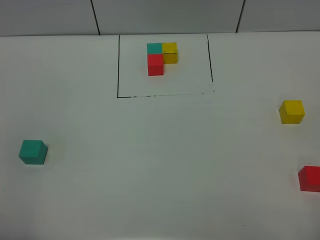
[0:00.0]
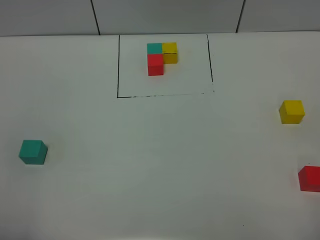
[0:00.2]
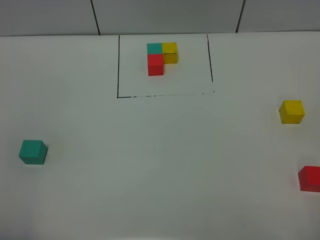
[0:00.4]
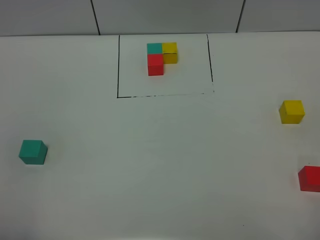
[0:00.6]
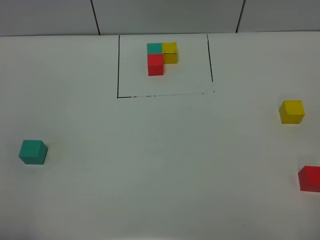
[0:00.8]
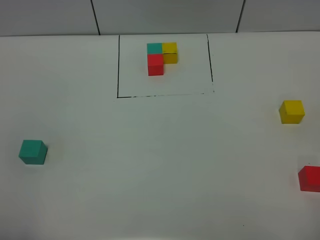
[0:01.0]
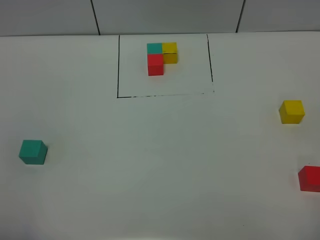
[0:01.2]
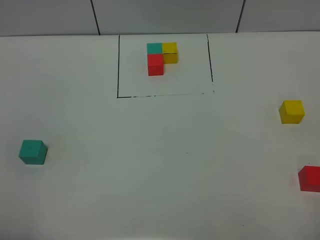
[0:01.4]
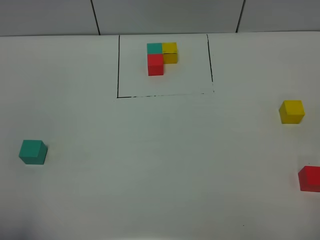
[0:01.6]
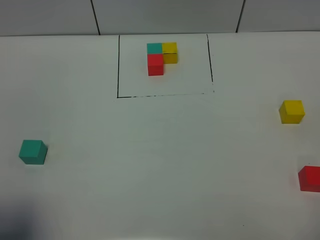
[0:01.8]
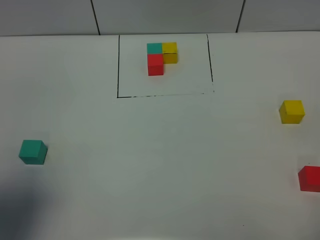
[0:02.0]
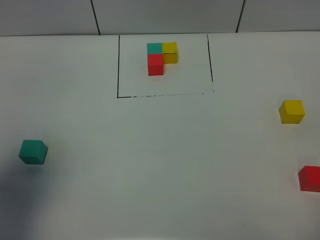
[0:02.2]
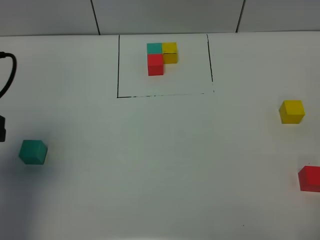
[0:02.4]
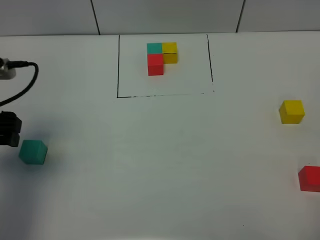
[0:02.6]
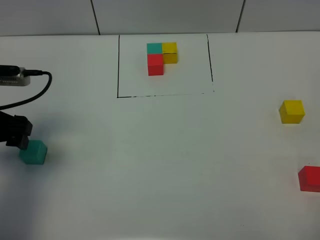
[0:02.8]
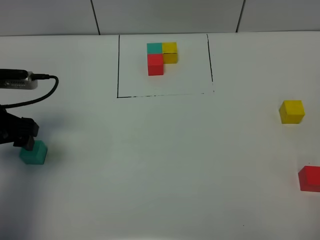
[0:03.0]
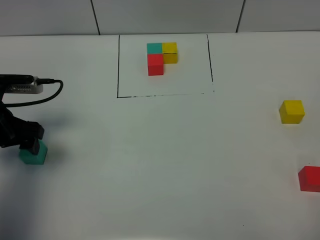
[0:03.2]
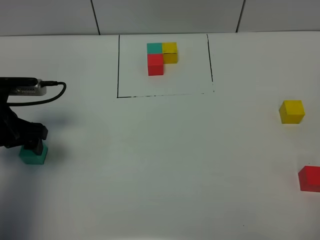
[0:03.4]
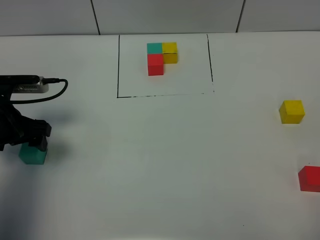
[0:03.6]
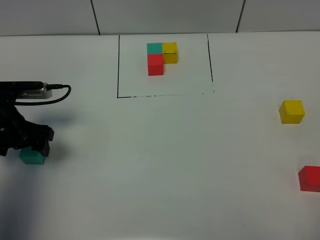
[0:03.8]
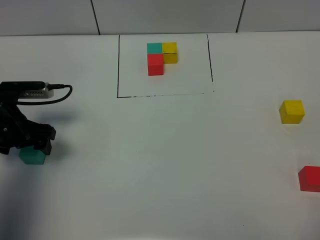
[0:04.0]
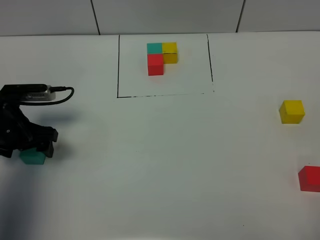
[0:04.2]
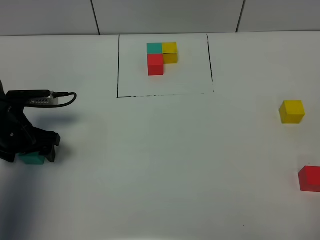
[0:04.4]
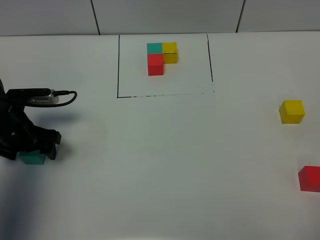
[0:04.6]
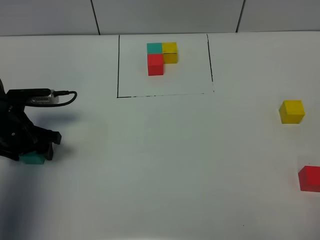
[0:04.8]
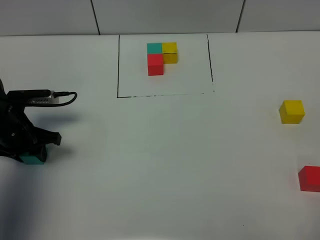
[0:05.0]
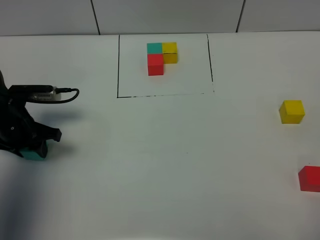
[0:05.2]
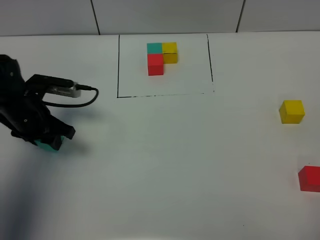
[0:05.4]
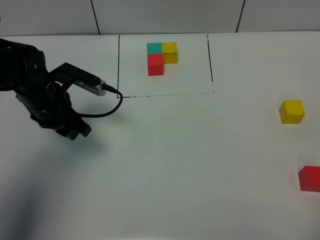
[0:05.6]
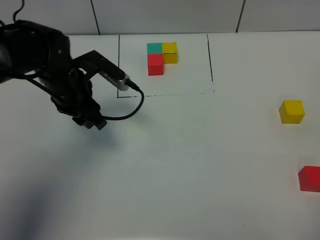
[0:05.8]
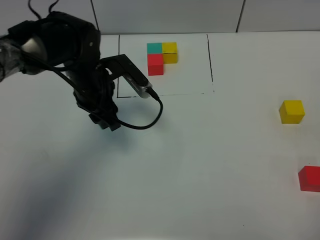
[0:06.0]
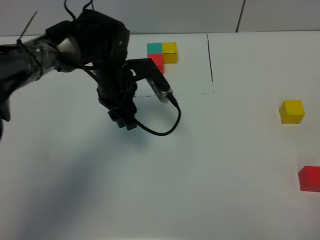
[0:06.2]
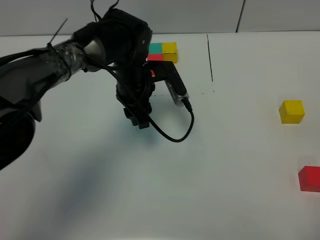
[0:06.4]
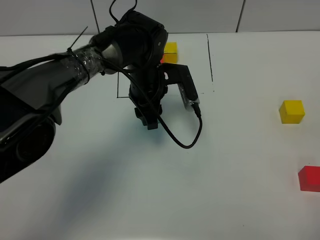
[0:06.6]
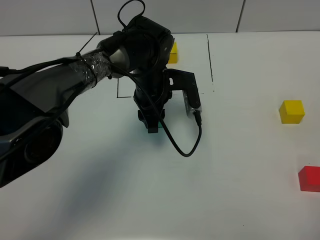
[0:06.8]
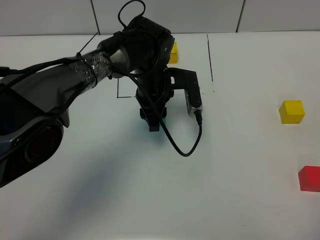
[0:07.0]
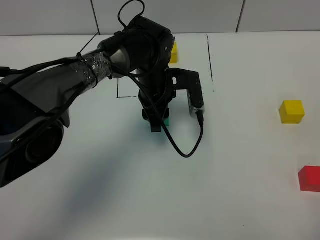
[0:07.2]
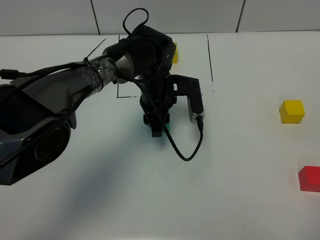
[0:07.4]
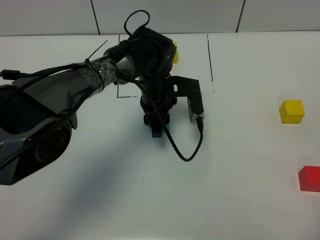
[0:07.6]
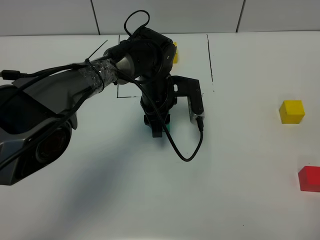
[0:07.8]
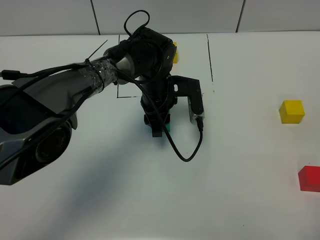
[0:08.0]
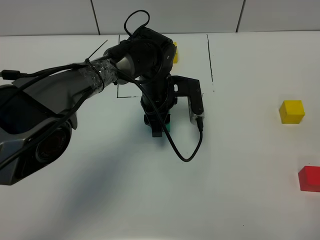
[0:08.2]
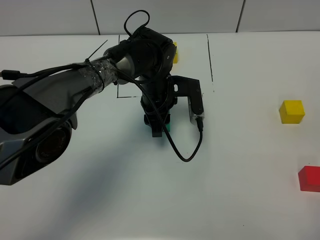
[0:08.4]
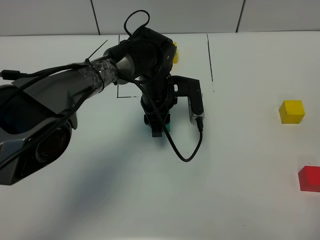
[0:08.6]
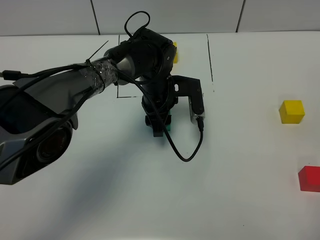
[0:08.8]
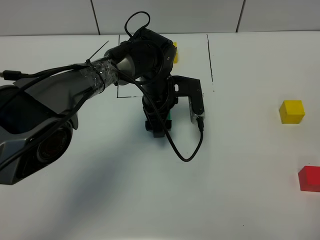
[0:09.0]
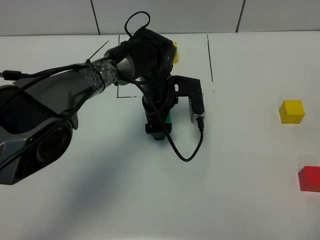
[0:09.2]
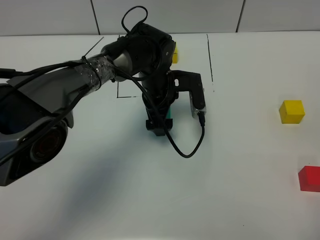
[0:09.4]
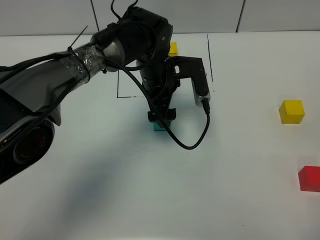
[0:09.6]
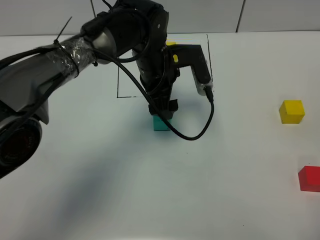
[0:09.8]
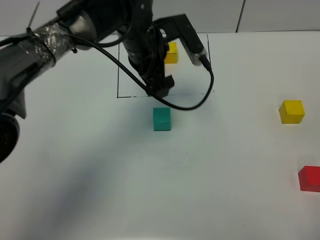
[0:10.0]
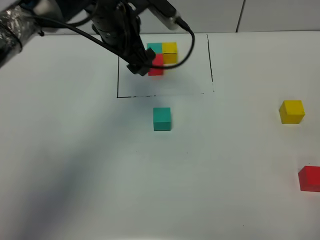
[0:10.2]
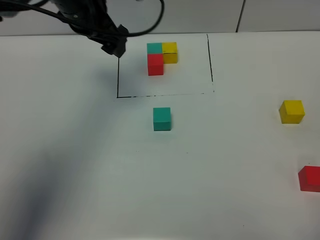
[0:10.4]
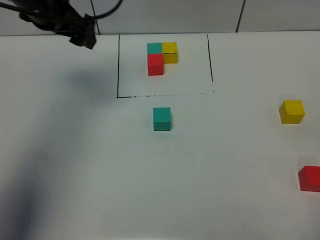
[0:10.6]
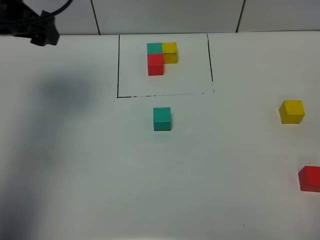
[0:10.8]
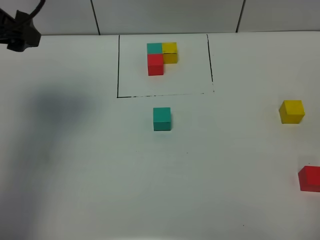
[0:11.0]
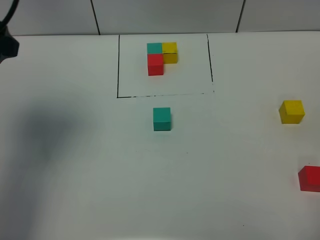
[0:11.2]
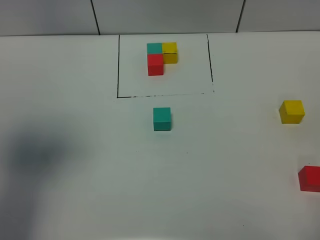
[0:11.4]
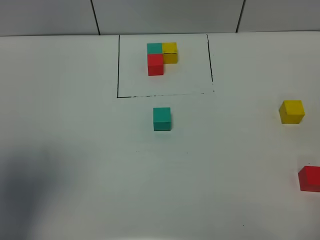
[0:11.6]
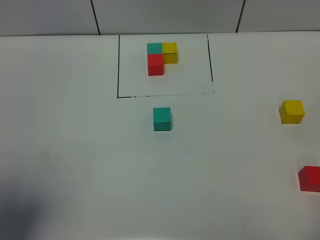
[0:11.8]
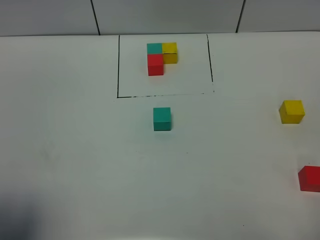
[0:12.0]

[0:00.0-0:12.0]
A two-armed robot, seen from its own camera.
Task of the whole recording: According to the building block template in front, assemble the scattered blocks together.
Step, 0:00.0 to 0:09.0: Put the green build block in the center of the table.
0:01.6 to 0:03.0: The left gripper shifts roughly 25 cm forward.
0:03.0 to 0:04.4: The left gripper heads downward, covering about 10 cm.
0:04.4 to 0:06.0: The left gripper goes some 15 cm to the right, and closes its fingers.
0:06.0 to 0:07.6: The left gripper moves to the right and downward, roughly 10 cm.
0:07.6 to 0:09.0: The left gripper opens up.
0:09.0 to 0:10.4: The left gripper is displaced upward and to the left by roughly 25 cm.
0:10.4 to 0:12.0: The left gripper heads backward, covering approximately 35 cm.

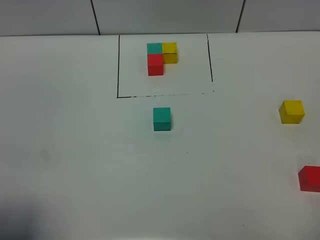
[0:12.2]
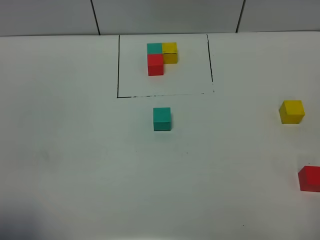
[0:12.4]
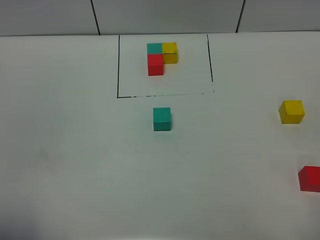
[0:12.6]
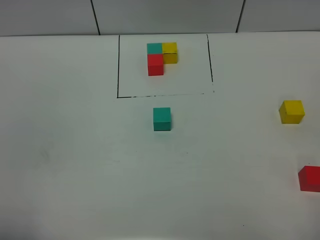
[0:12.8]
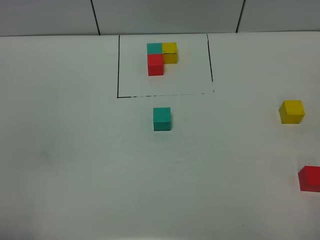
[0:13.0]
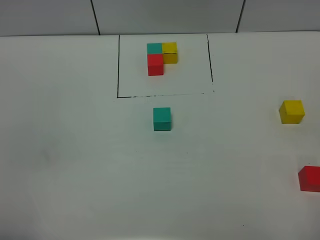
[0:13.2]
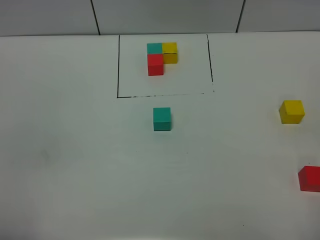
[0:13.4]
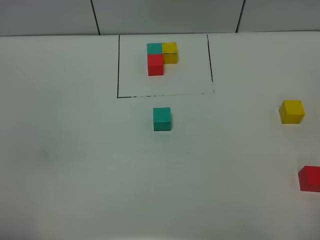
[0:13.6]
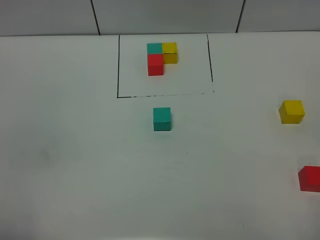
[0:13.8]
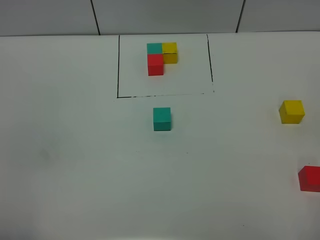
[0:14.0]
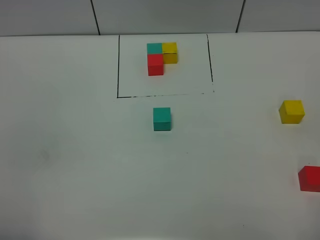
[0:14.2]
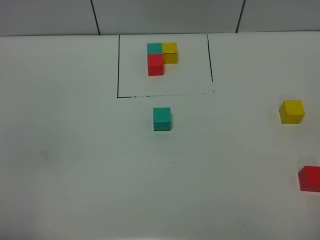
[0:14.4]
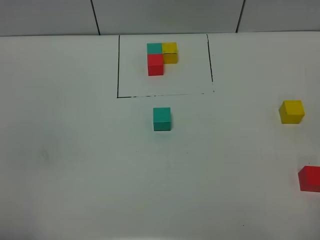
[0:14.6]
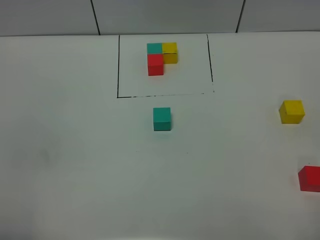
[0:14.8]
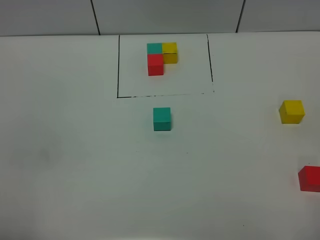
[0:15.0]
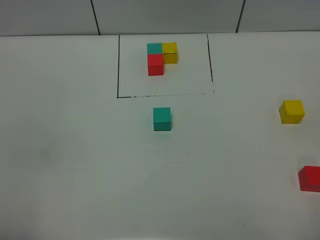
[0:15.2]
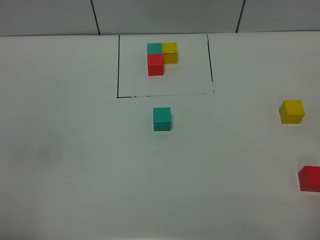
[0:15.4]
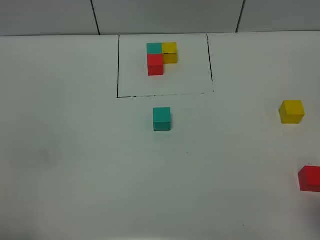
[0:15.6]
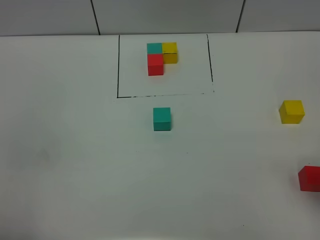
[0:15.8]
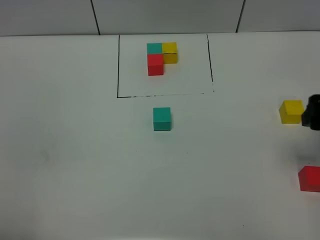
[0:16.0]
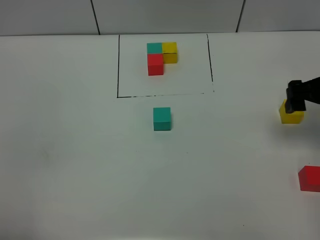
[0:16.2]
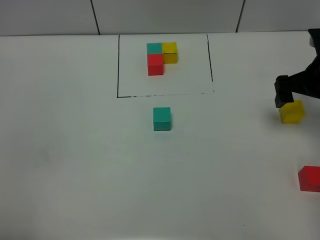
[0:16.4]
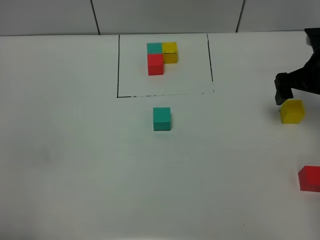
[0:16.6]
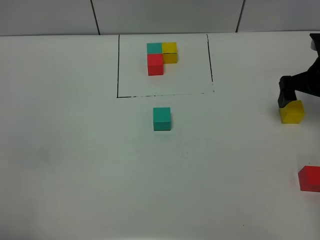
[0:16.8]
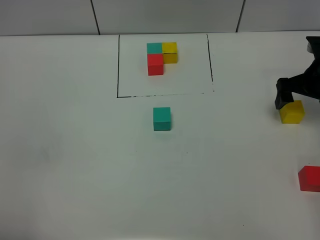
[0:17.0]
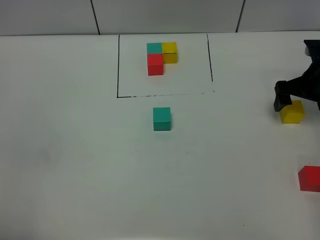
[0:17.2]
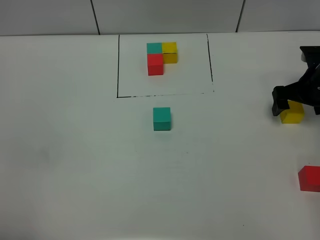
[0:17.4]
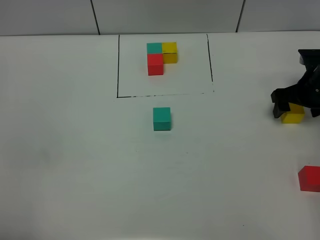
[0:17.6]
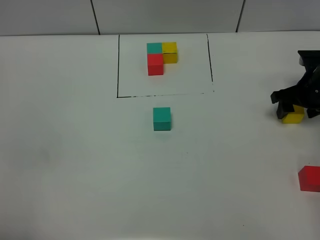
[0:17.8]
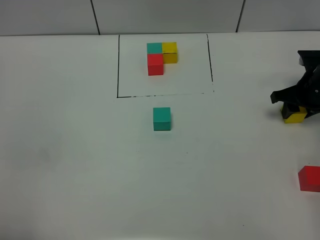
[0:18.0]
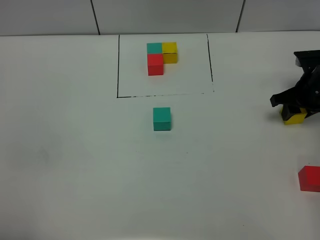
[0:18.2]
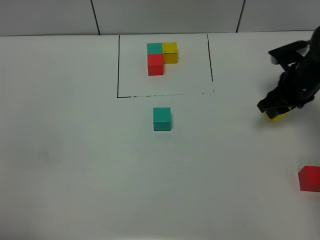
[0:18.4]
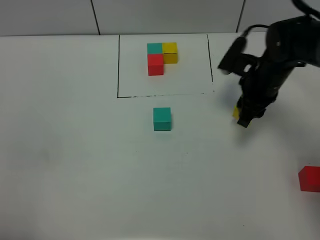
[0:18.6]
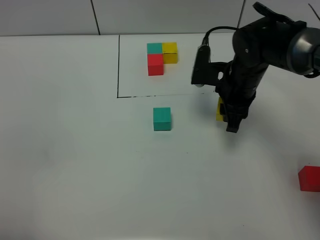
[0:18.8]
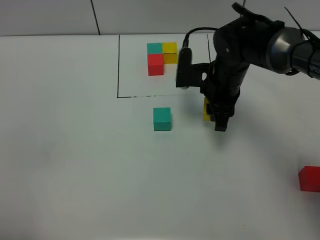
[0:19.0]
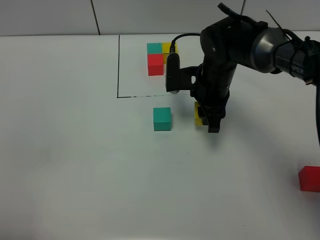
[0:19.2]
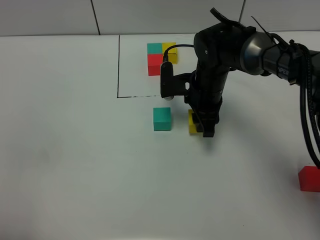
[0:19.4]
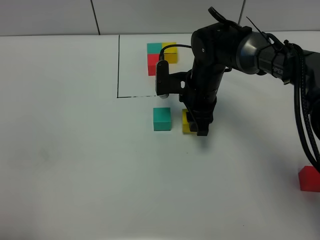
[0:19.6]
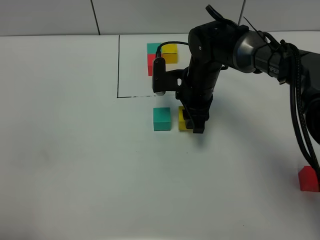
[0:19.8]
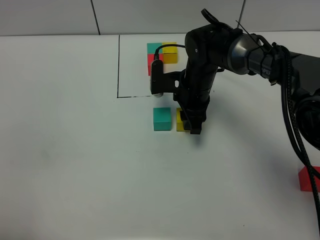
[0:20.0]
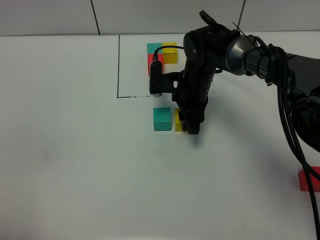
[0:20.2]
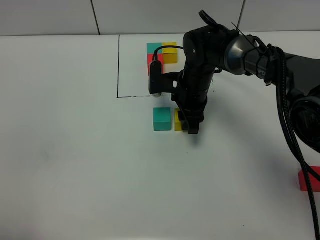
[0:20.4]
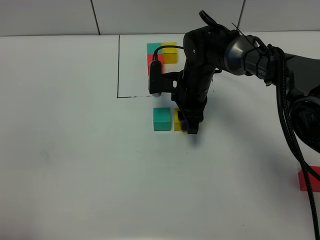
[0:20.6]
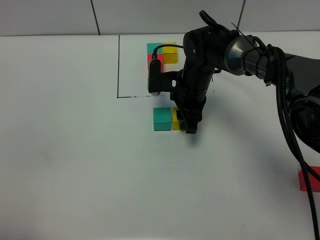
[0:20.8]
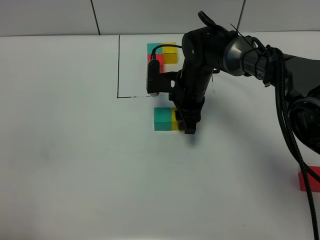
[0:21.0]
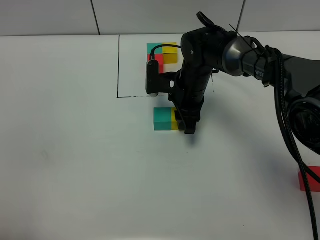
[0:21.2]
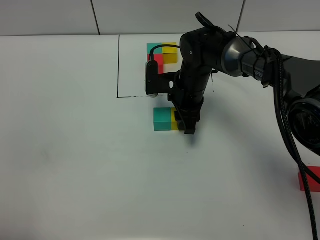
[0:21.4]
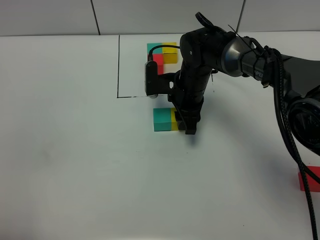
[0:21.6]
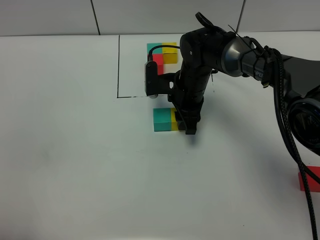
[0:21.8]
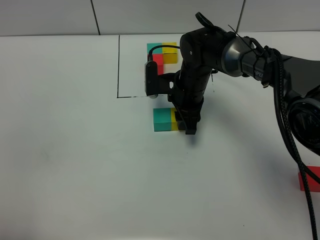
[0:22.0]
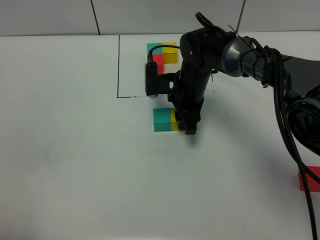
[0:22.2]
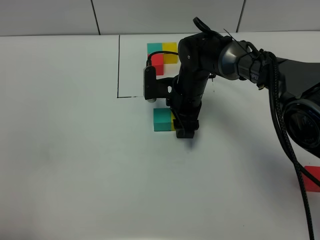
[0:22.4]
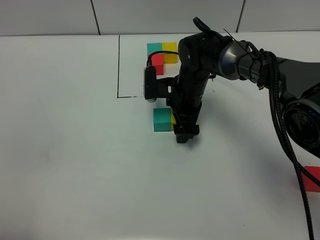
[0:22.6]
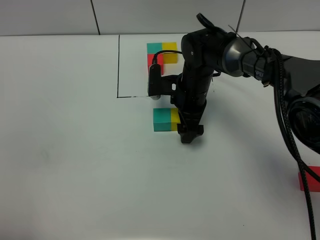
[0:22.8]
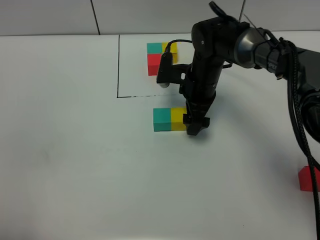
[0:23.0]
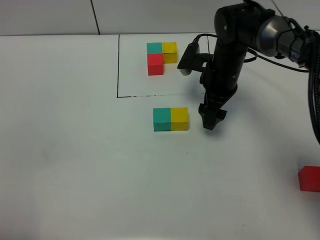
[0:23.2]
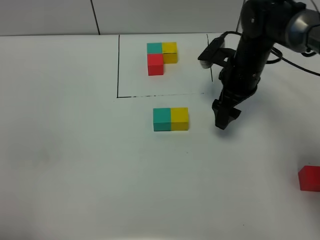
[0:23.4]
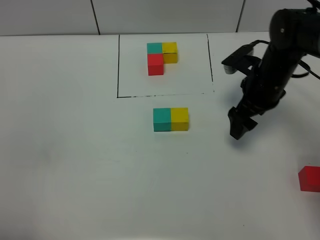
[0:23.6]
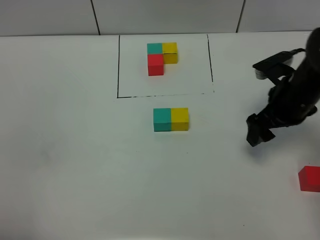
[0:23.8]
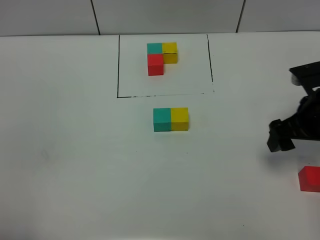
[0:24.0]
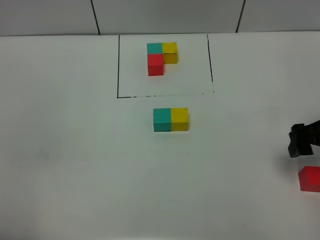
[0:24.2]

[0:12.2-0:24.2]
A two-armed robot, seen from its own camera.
Task of the whole recording: According to the building block template in front, assemble the scattered blocks together.
Step, 0:12.2 to 0:22.6: Put the yellow build block on the right of the green build block.
0:12.2 to 0:13.8: The left gripper shifts roughly 5 cm downward.
0:13.8 to 0:15.2: Neither gripper changes place.
0:15.2 to 0:16.6: The right gripper moves forward, some 40 cm.
0:16.6 to 0:18.2: The right gripper goes roughly 5 cm downward, and closes.
0:18.2 to 0:19.8: The right gripper moves to the left, approximately 25 cm.
0:19.8 to 0:21.2: The grippers stay close to where they were, moving slightly.
0:21.2 to 0:22.6: The right gripper opens up.
0:22.6 to 0:24.2: The right gripper travels to the right and backward by approximately 30 cm.
